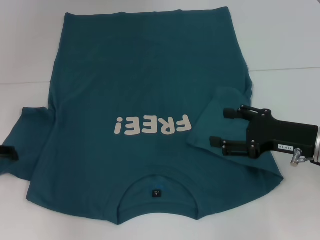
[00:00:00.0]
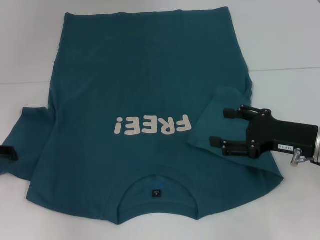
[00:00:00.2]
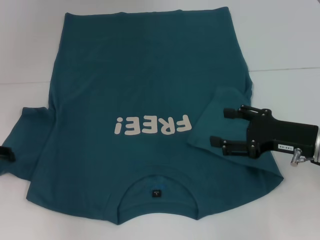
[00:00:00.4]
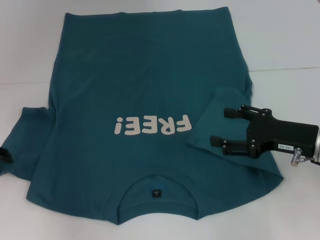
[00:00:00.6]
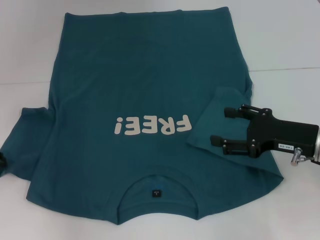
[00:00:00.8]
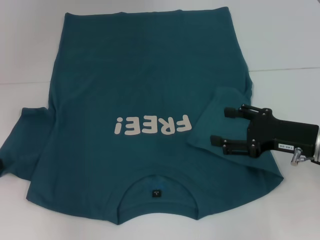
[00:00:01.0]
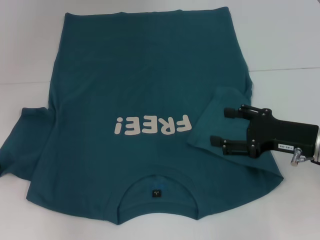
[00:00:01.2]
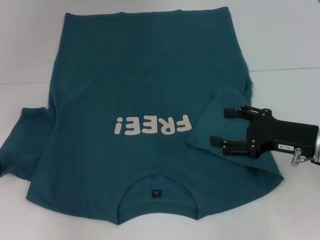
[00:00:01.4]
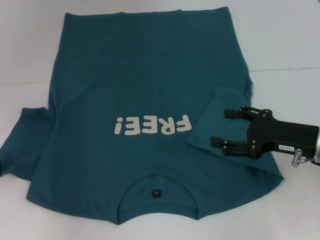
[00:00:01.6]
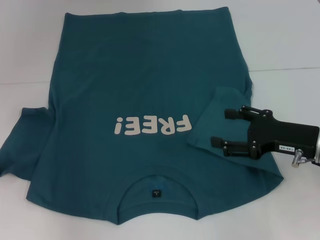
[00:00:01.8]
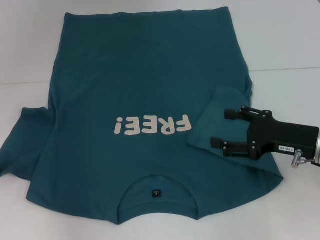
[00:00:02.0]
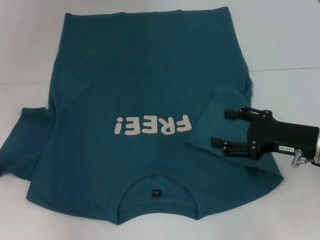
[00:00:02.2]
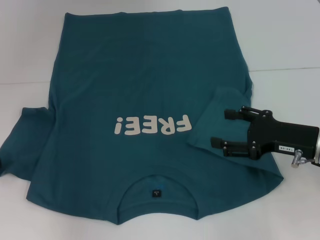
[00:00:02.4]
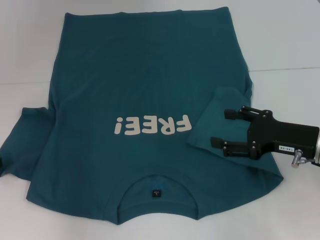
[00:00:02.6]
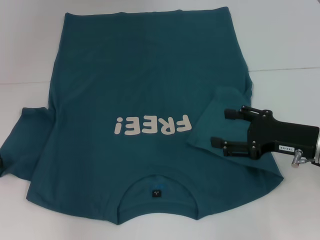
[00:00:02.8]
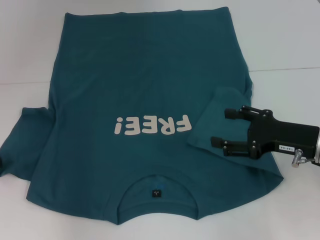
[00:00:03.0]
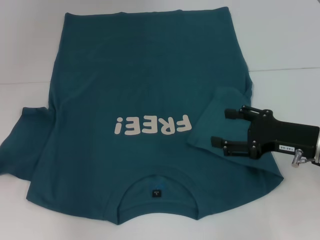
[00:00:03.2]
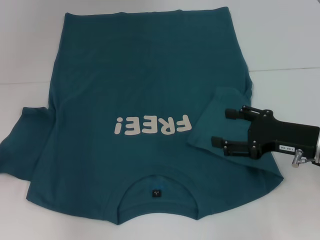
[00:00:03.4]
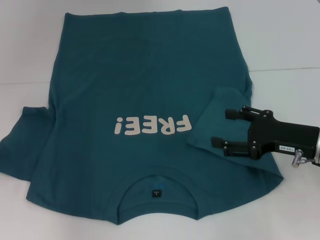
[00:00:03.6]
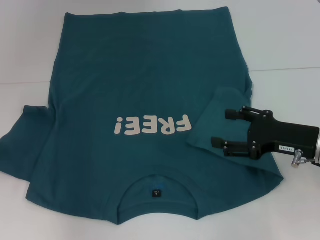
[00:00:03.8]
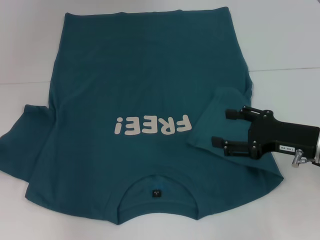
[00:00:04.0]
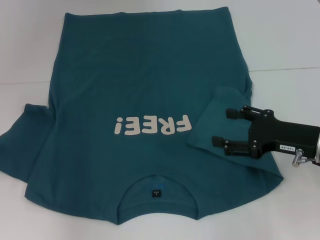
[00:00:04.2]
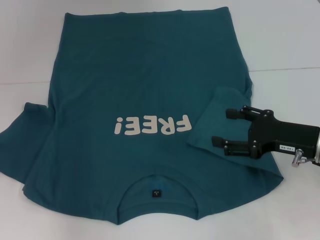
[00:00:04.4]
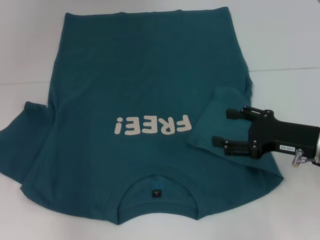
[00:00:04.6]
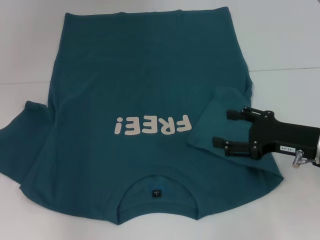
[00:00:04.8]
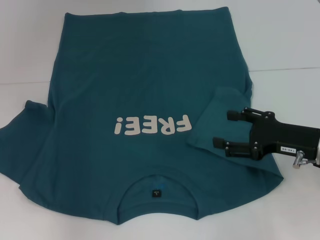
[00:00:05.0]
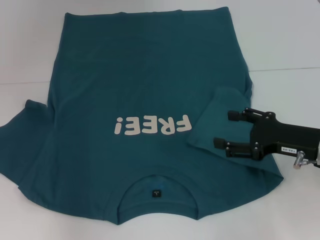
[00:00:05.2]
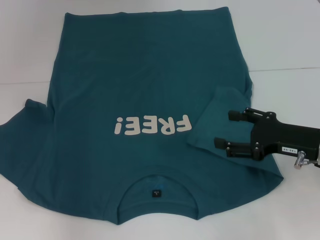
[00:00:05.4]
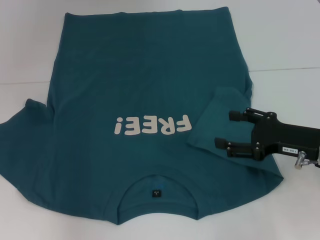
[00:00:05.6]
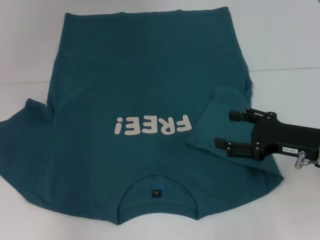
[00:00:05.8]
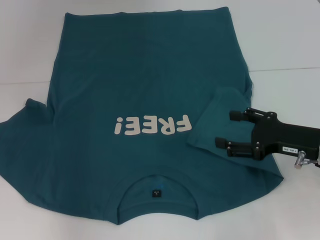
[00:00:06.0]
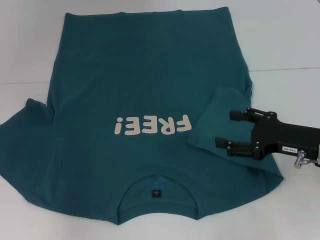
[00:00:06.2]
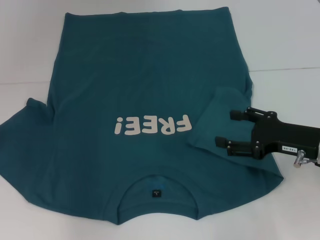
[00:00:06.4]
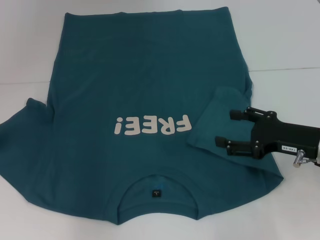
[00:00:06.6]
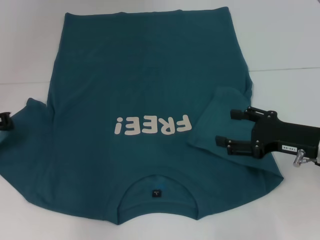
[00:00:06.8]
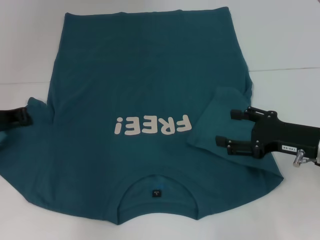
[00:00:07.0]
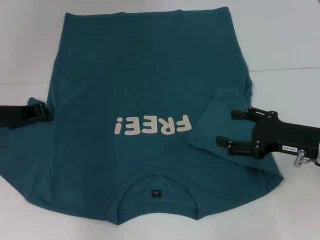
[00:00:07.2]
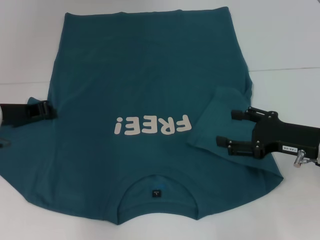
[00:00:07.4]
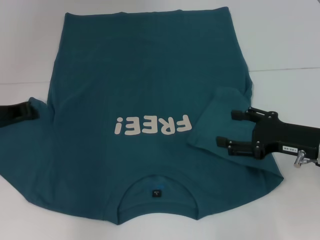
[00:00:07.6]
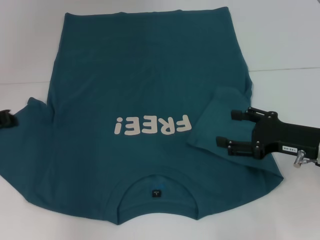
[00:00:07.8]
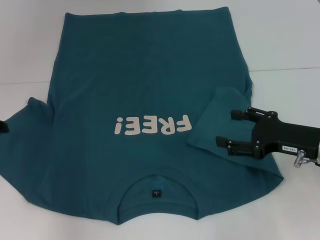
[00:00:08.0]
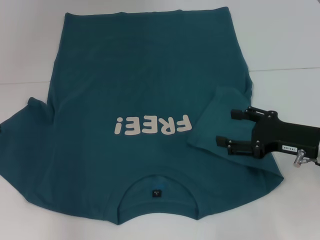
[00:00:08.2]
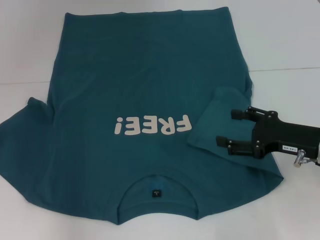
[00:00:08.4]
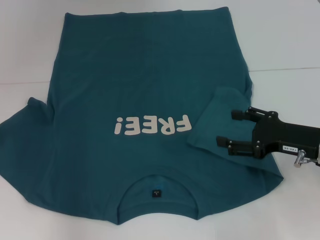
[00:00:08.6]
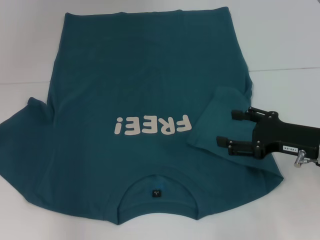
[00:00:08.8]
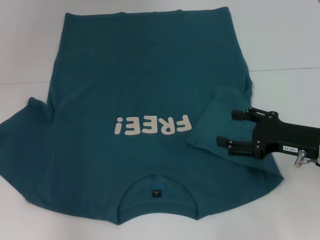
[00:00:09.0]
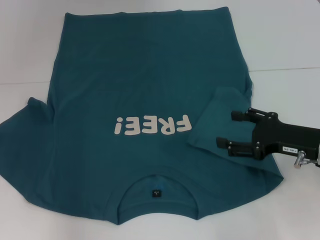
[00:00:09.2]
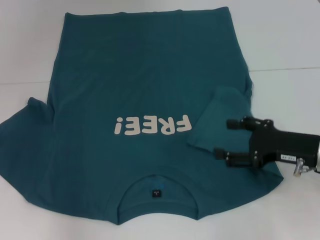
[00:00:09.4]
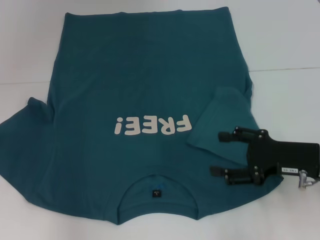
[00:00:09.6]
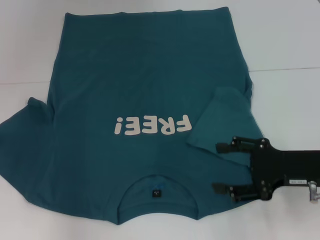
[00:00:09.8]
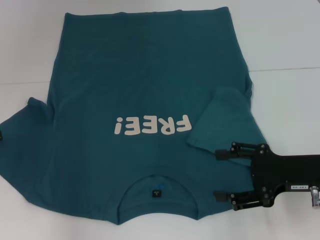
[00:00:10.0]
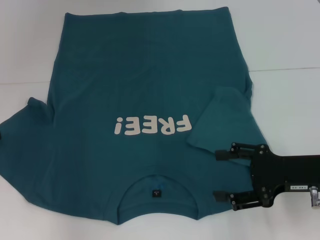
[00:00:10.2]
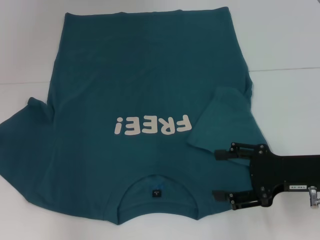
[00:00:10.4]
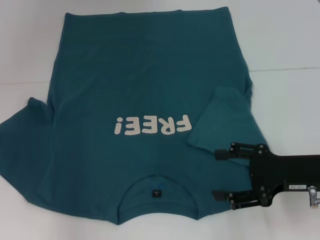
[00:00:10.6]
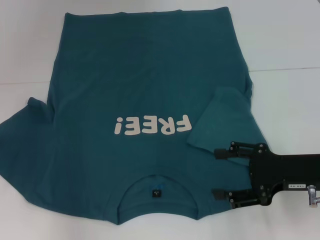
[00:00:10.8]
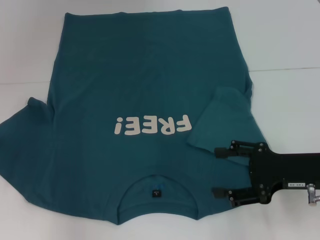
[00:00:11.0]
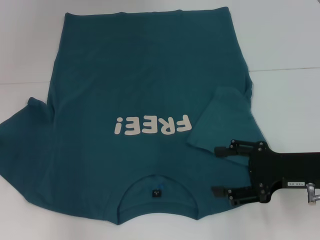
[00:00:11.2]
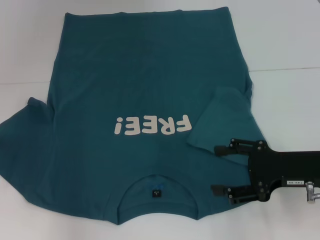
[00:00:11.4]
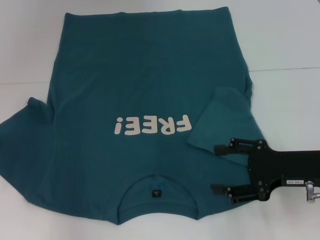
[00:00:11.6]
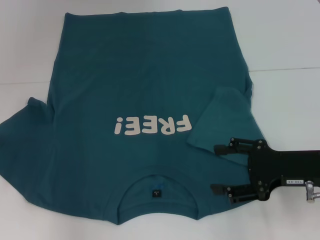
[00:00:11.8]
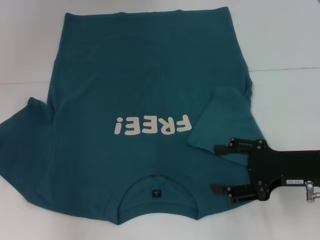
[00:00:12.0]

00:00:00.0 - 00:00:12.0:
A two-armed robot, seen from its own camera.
00:00:04.4 - 00:00:06.0: The grippers make only small movements.
00:00:06.0 - 00:00:07.6: The left gripper moves to the right, about 10 cm.
00:00:07.6 - 00:00:09.0: The left gripper travels to the left by about 5 cm, and opens.
00:00:10.4 - 00:00:12.0: Neither gripper changes place.

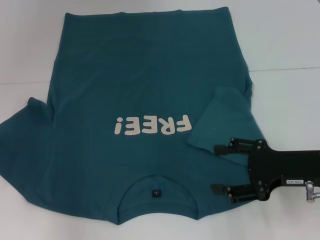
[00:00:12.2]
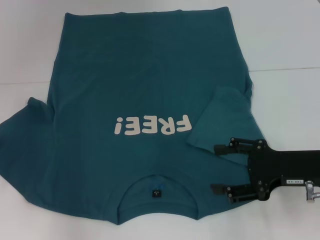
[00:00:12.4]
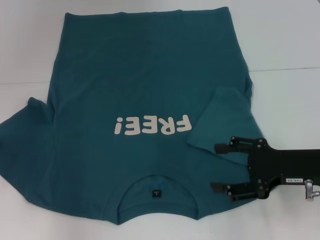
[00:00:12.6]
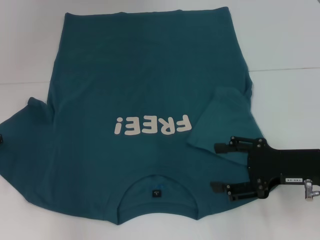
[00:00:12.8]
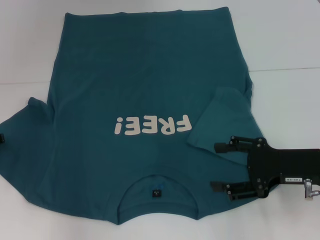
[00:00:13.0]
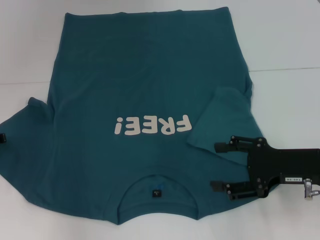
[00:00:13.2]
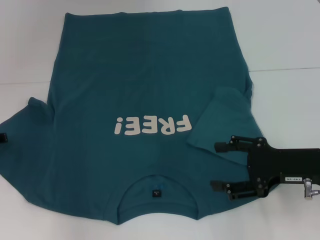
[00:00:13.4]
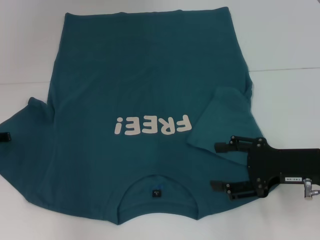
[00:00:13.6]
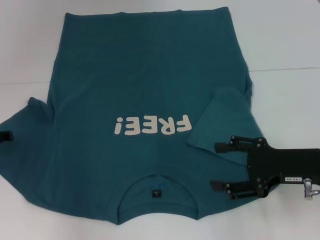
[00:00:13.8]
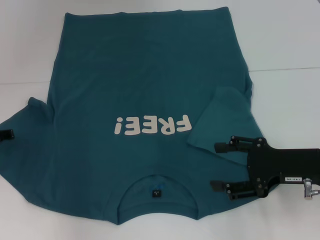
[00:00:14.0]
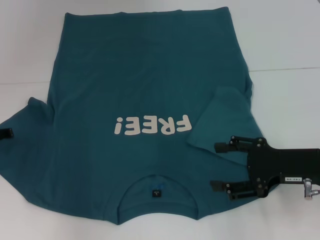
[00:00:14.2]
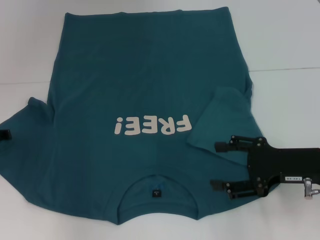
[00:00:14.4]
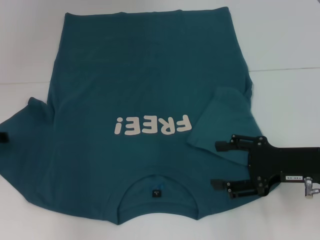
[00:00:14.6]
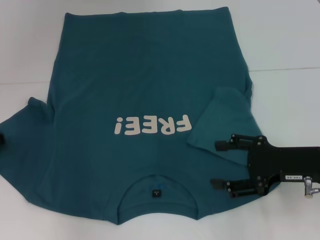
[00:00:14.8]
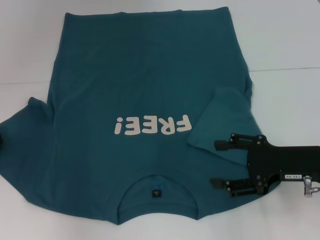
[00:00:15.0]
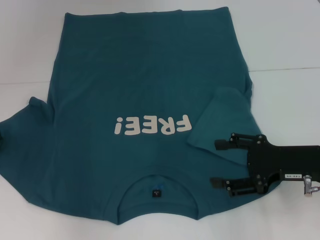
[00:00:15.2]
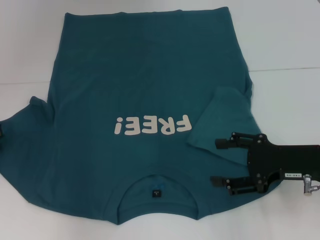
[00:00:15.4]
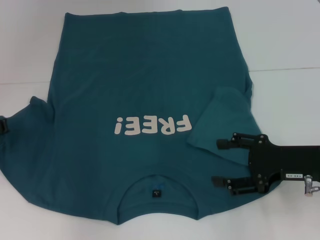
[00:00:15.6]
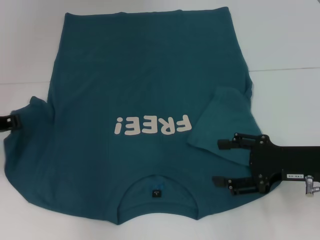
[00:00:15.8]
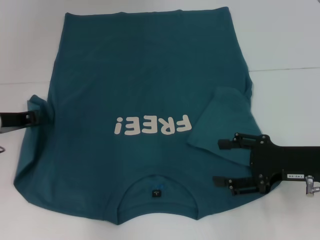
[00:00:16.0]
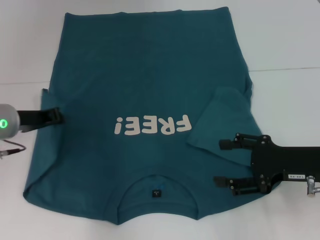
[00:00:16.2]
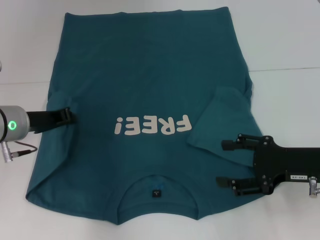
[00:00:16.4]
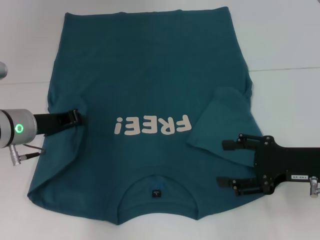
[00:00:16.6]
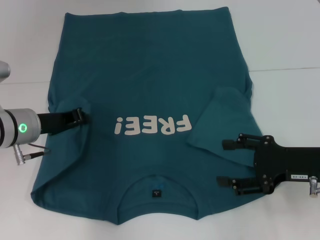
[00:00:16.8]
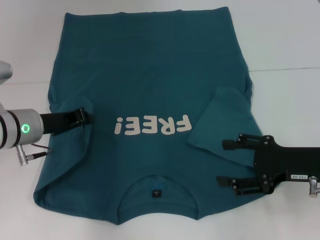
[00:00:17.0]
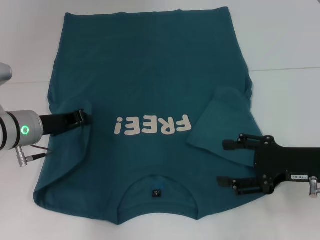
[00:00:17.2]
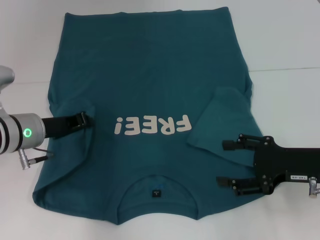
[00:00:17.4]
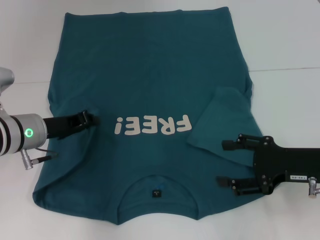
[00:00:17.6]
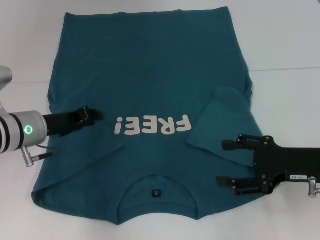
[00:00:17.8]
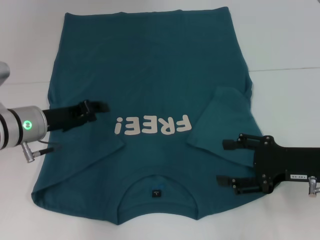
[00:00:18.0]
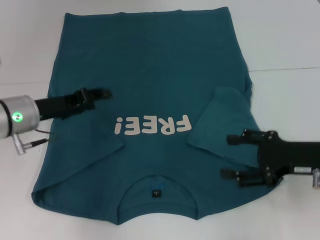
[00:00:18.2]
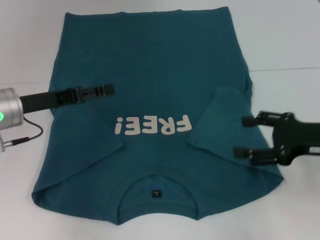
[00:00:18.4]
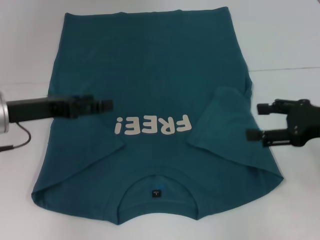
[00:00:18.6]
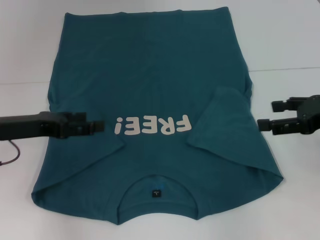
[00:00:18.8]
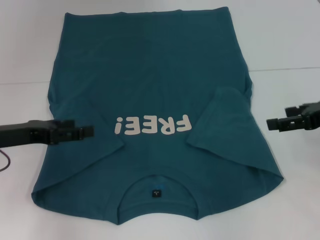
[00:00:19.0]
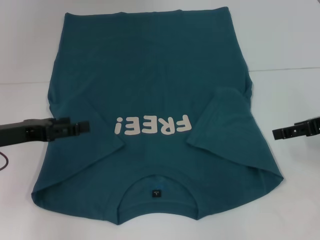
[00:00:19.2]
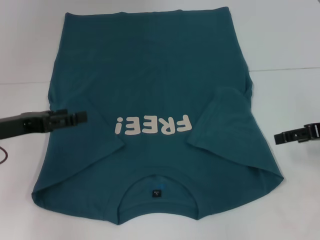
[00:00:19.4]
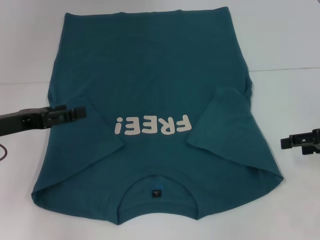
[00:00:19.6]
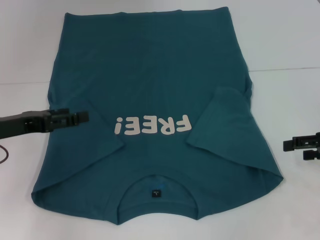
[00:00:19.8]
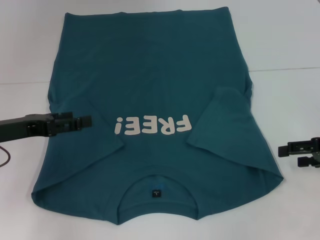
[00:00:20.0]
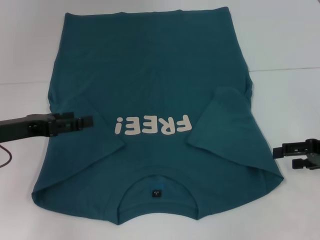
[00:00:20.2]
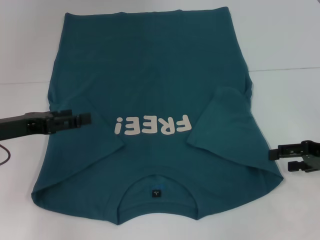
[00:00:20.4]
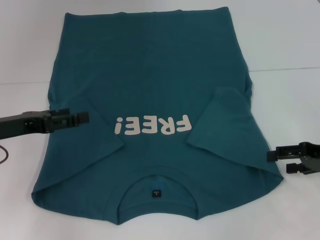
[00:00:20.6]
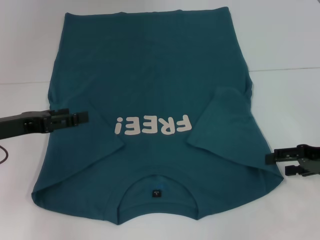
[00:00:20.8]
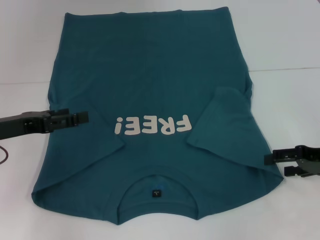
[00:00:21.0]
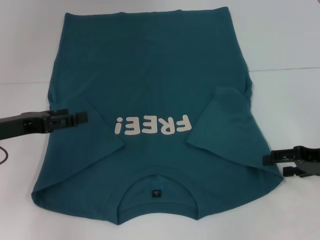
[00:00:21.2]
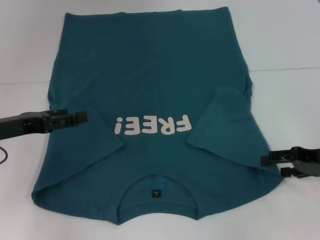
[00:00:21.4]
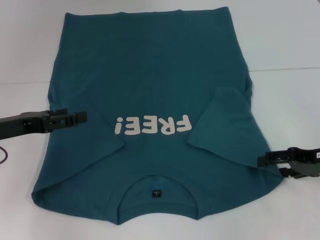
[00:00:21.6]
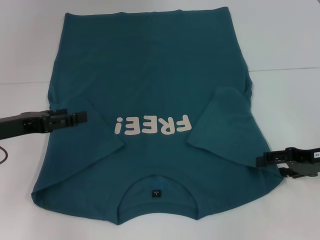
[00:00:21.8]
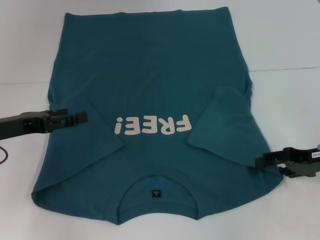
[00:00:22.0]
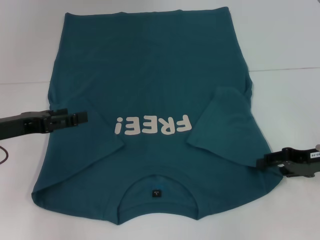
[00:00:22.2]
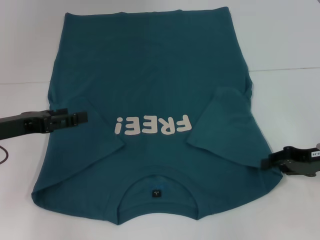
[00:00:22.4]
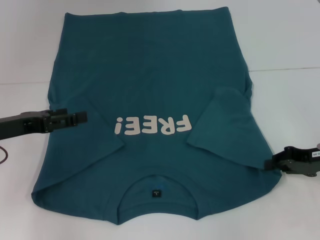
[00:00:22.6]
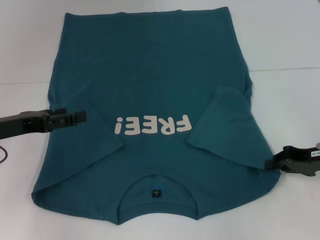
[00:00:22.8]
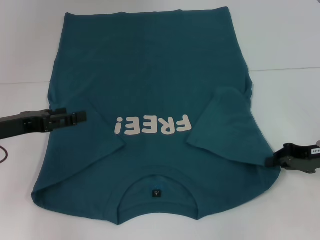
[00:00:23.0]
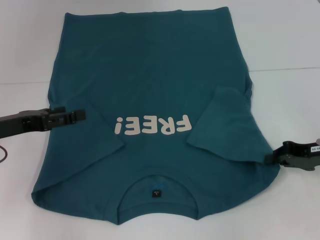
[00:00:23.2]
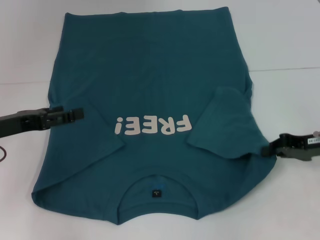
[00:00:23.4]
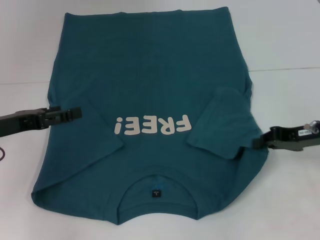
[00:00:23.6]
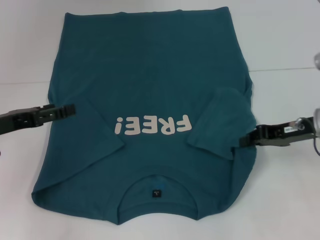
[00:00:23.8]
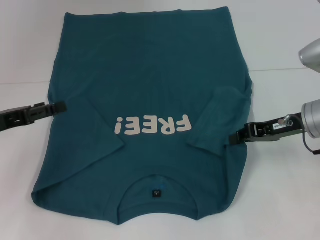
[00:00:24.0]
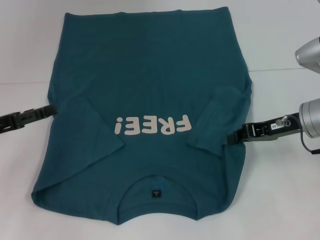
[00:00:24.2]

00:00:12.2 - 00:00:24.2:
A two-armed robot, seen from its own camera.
Step, 00:00:12.2 - 00:00:18.2: Fold the bottom left sleeve with your left hand.
Step, 00:00:18.4 - 00:00:23.6: Grab the bottom right corner with your right hand.
00:00:12.2 - 00:00:13.8: The grippers move only a little.
00:00:15.2 - 00:00:16.6: The left gripper goes roughly 10 cm to the right.
00:00:16.6 - 00:00:18.2: The left gripper opens.
00:00:18.2 - 00:00:19.8: The right gripper is displaced to the right by approximately 10 cm; the left gripper goes approximately 5 cm to the left, and opens up.
00:00:19.8 - 00:00:21.2: The grippers make only small movements.
00:00:21.2 - 00:00:22.6: The right gripper closes its fingers.
00:00:22.6 - 00:00:24.2: The right gripper goes some 5 cm to the left, and closes up.
